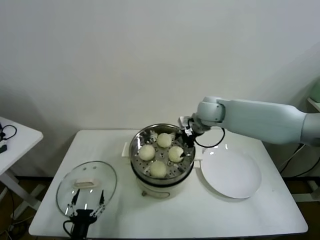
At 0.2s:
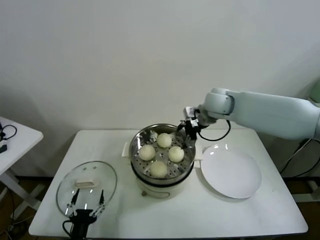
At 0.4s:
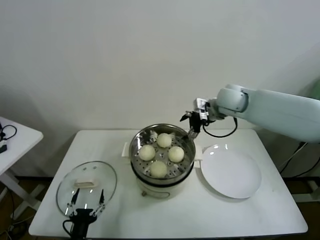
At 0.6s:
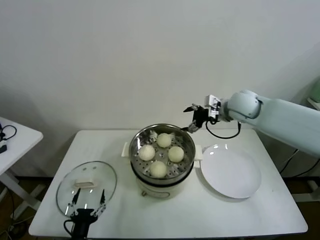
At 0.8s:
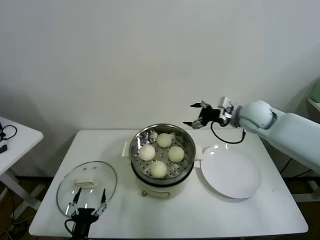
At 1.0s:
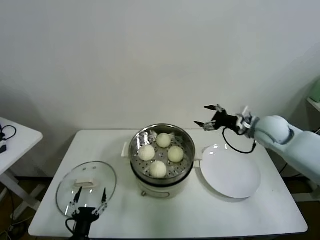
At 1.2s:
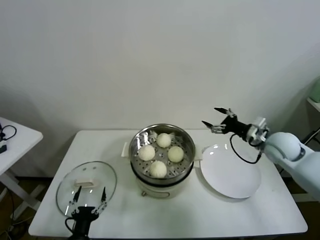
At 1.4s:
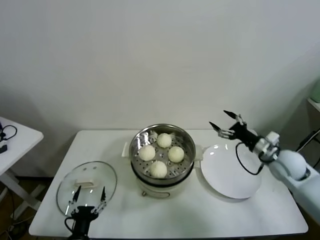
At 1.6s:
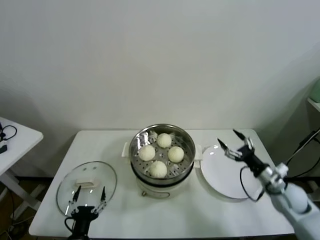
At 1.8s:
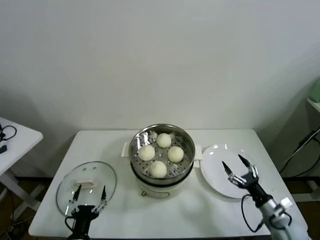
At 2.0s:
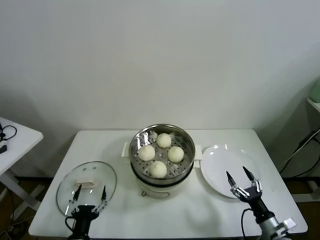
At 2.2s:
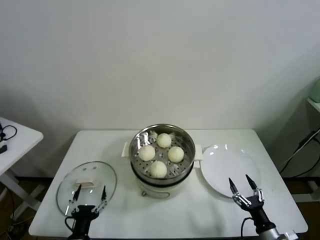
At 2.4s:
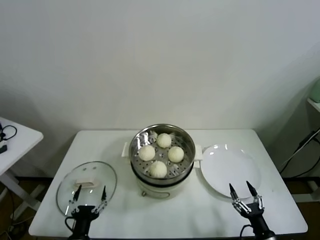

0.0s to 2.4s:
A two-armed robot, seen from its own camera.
Task of the whole recording: take steamed baozi put them in steamer.
0.0s to 1.2s: The right gripper shifts roughly 25 cm to the right and backward.
1.2s to 2.4s: The right gripper heads backward and downward, covering approximately 40 cm.
